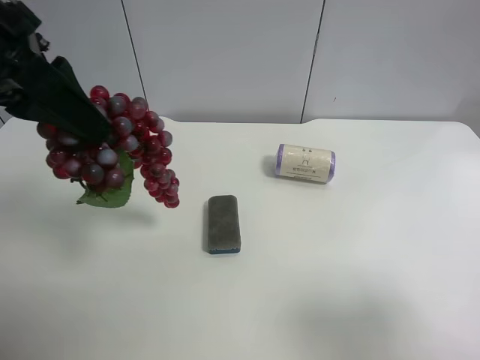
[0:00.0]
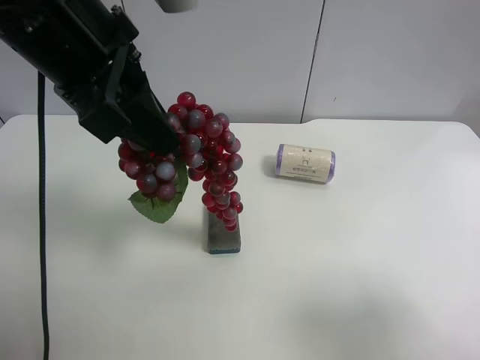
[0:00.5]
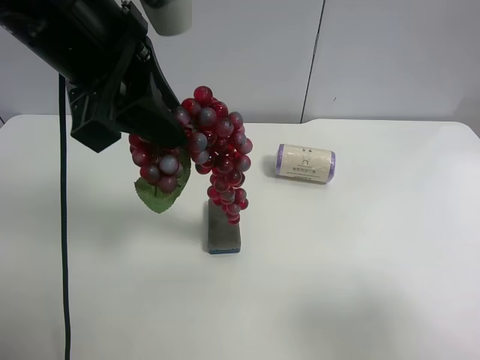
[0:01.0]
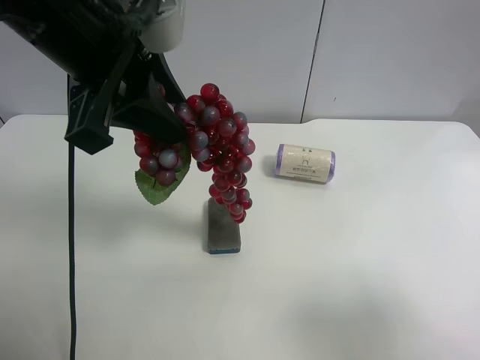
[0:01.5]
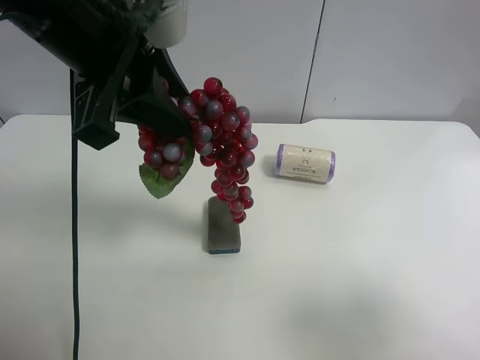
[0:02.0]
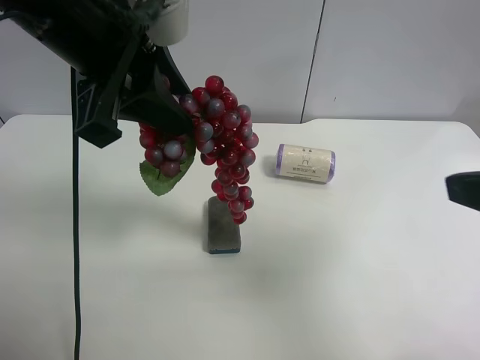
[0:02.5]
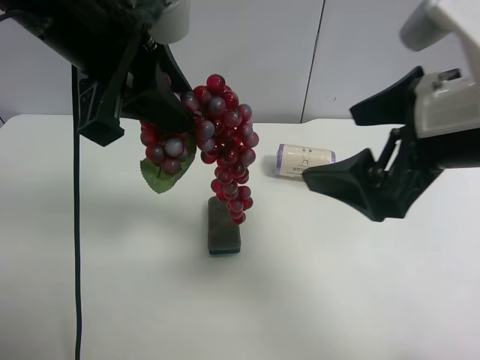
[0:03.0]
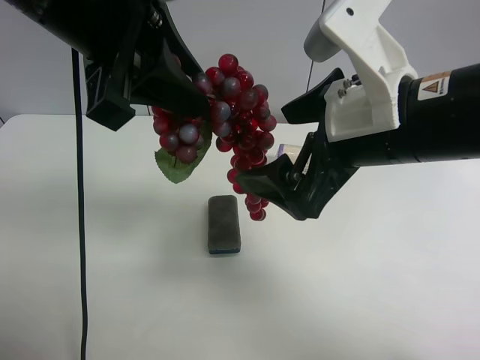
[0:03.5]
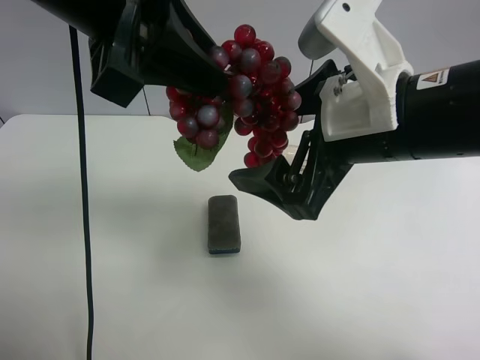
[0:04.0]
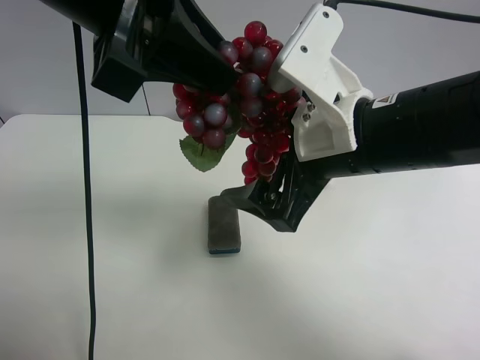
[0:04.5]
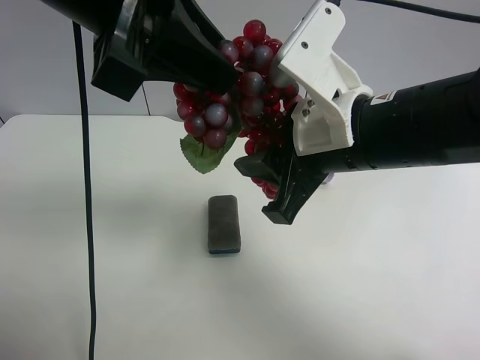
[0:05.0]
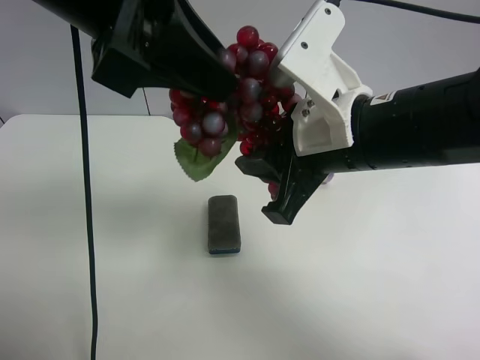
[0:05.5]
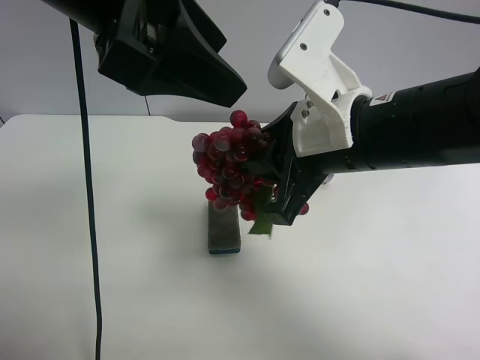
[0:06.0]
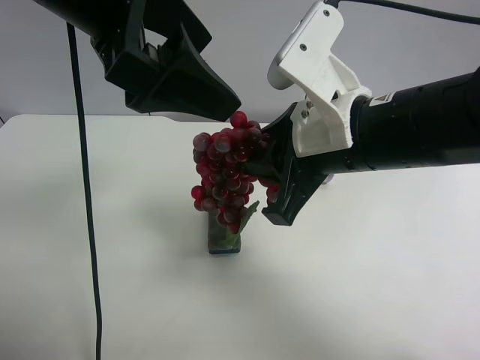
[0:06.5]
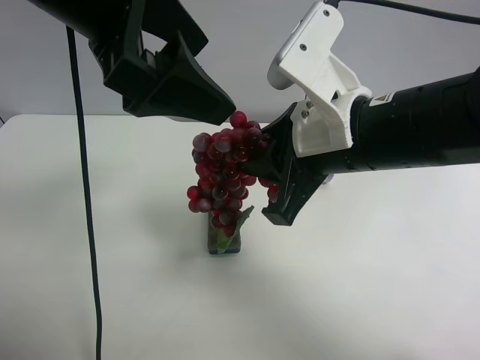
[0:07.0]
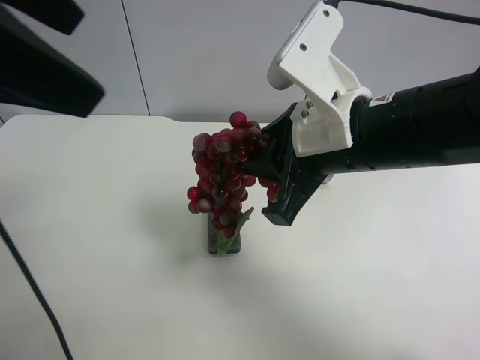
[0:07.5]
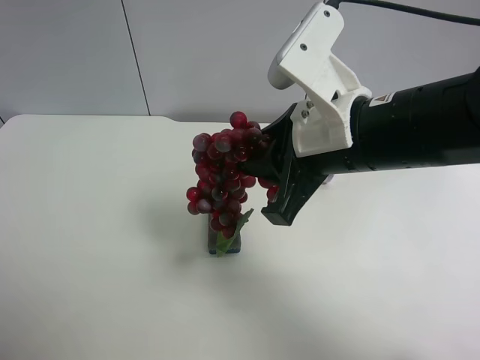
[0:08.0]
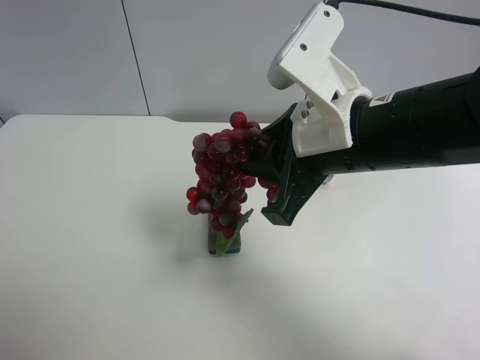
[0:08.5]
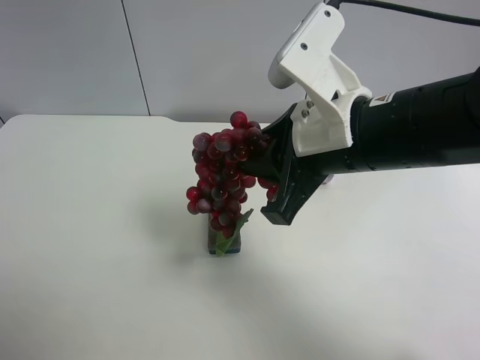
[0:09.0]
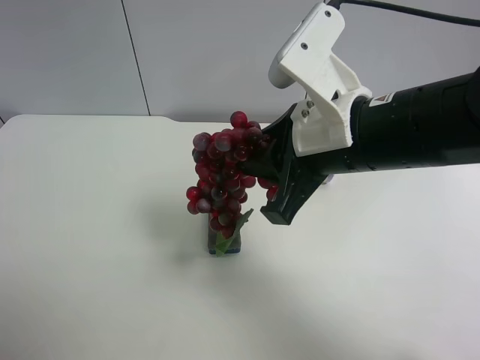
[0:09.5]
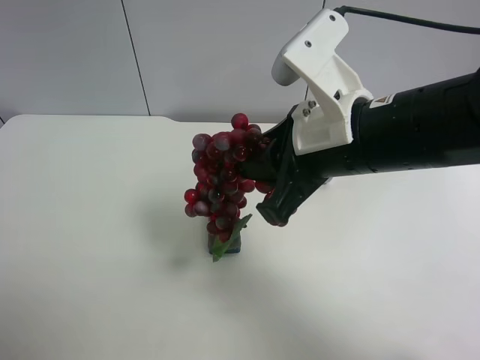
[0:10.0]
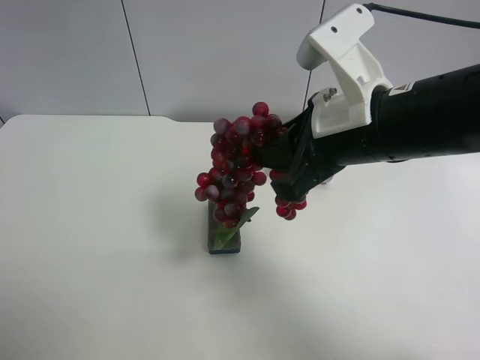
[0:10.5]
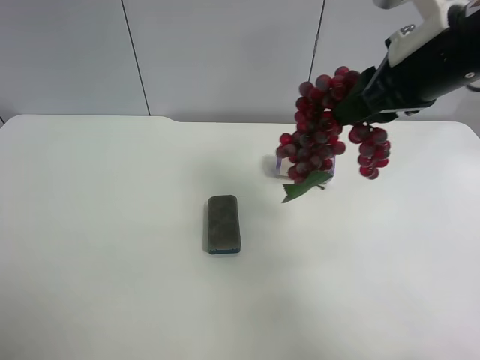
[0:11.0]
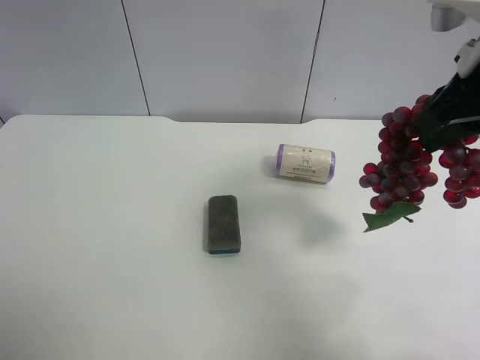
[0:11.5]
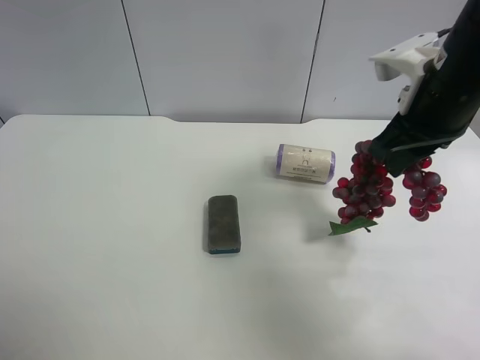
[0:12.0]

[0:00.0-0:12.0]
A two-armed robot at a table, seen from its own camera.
Task of the whole recording: use the left gripper to pick up the item and transfer it from the left gripper to the right gripper.
0:00.0 to 0:02.0: The left gripper moves to the right, approximately 5 cm.
0:02.0 to 0:04.0: The right gripper moves forward and to the left, some 25 cm.
0:04.0 to 0:06.0: The left gripper opens its fingers. The right gripper closes up.
0:06.0 to 0:08.0: The left gripper travels to the left and backward by some 20 cm, and opens its fingers.
0:08.0 to 0:10.0: The left gripper goes roughly 15 cm downward, backward and to the left.
0:10.0 to 0:12.0: The right gripper shifts roughly 15 cm to the right and forward.

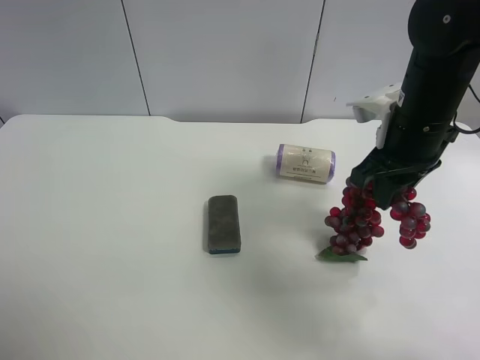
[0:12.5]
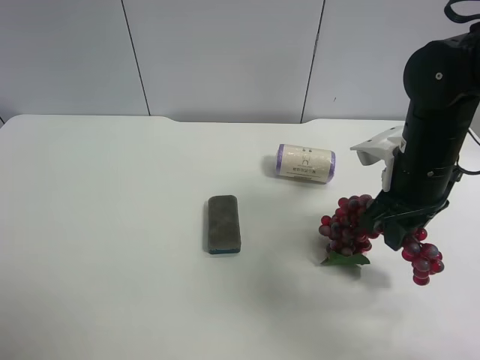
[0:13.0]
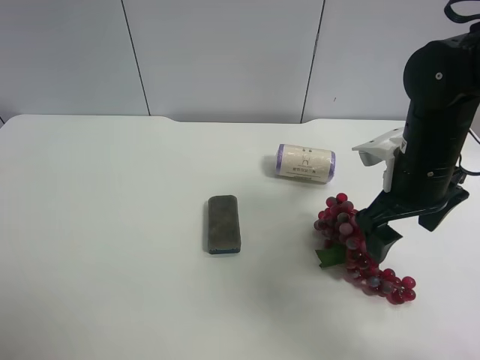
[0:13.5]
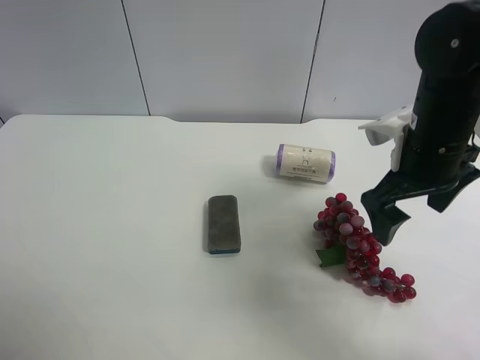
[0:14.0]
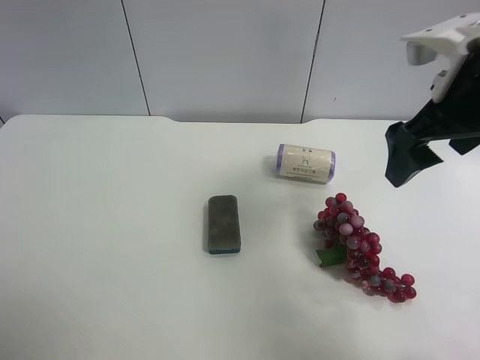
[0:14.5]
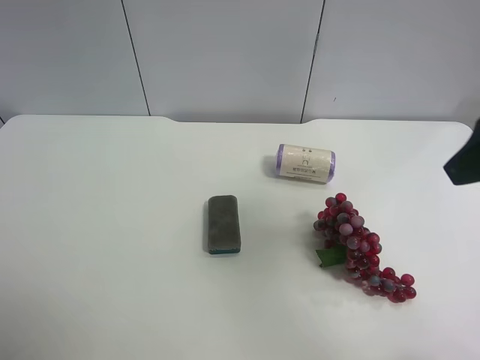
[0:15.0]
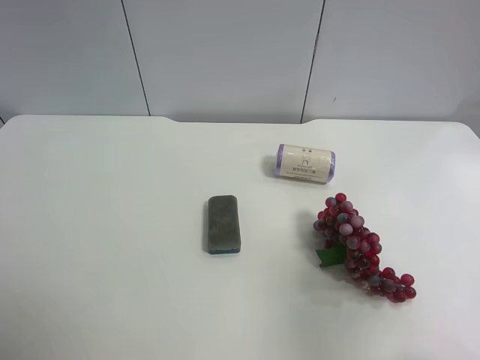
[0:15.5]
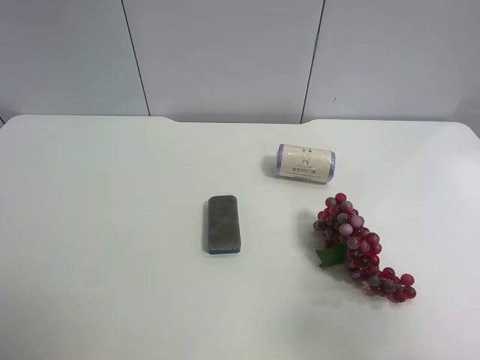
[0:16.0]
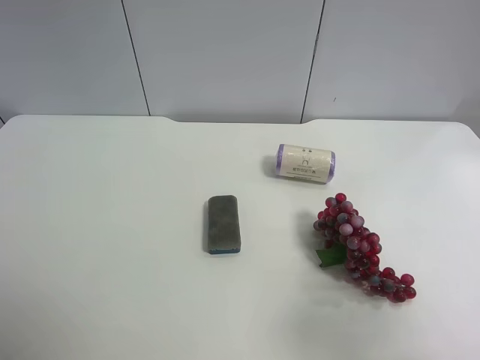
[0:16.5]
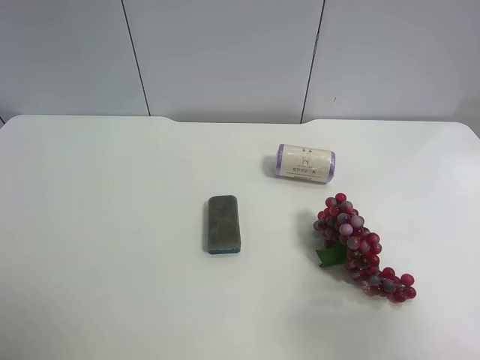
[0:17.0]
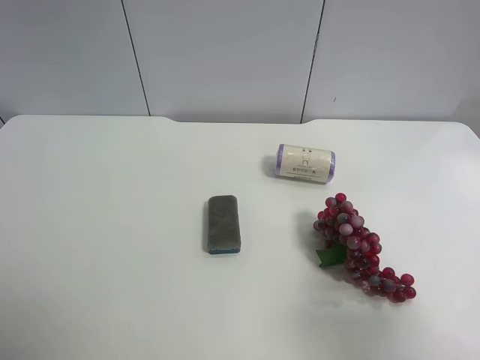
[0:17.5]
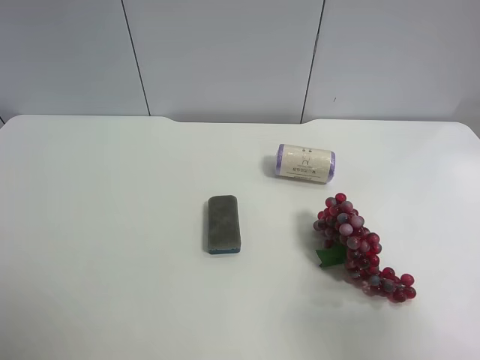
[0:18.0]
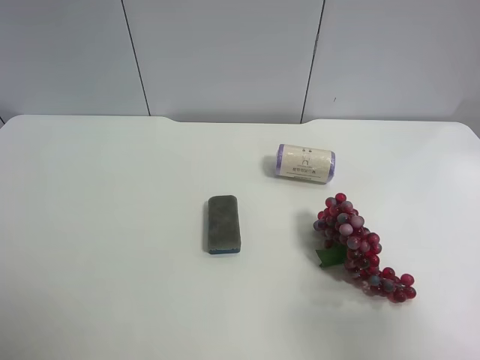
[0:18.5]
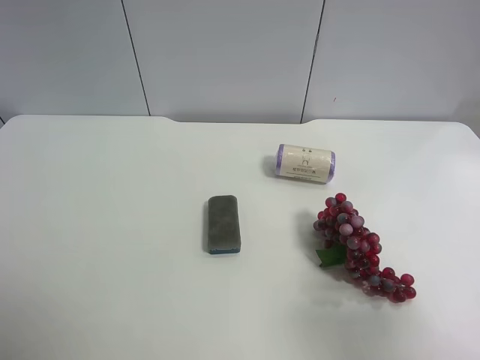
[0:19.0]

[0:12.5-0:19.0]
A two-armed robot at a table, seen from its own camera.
Task of the whole recording: use the left gripper to pick up the item and transfer it from the left gripper to the right gripper.
0:12.5 to 0:14.5: The right gripper heads upward, covering approximately 10 cm, and opens up.
0:14.5 to 0:17.0: The right gripper heads backward, covering approximately 25 cm.

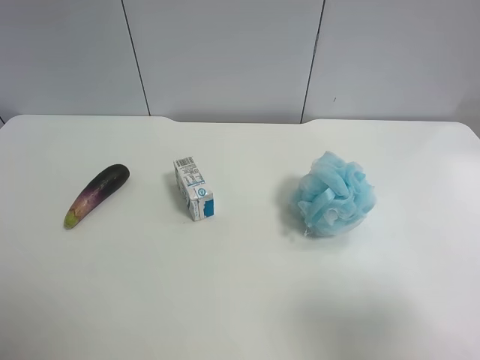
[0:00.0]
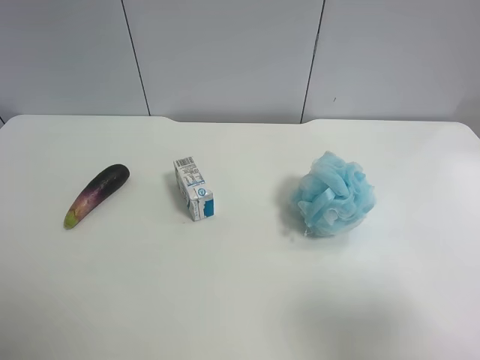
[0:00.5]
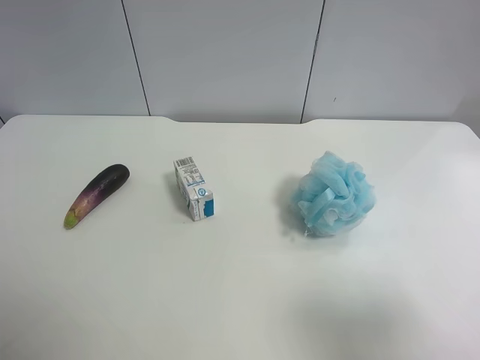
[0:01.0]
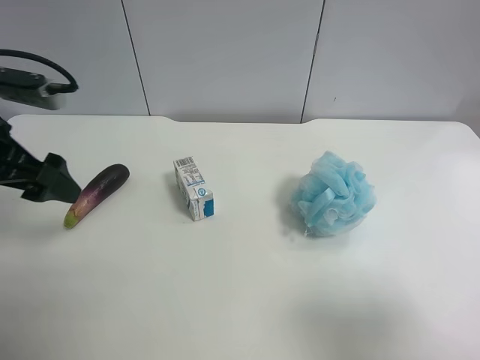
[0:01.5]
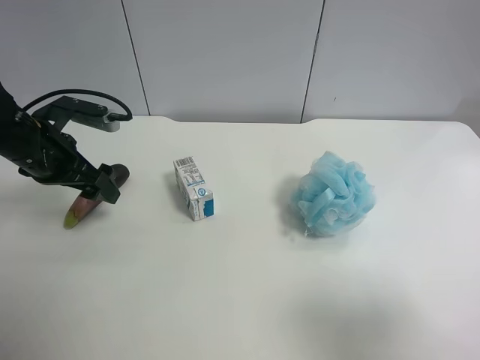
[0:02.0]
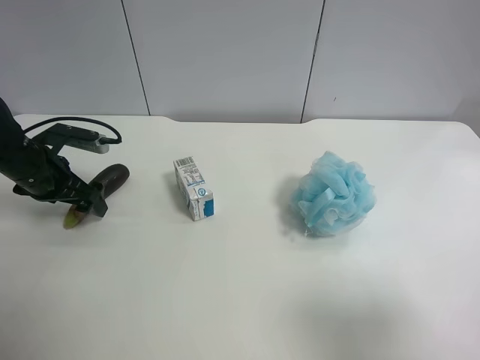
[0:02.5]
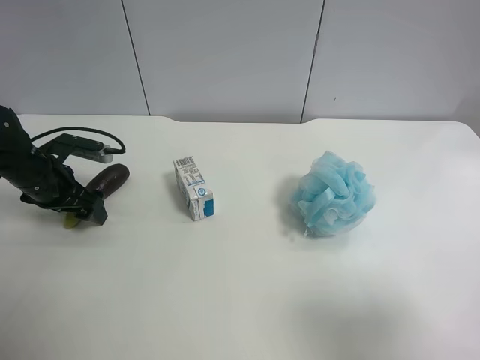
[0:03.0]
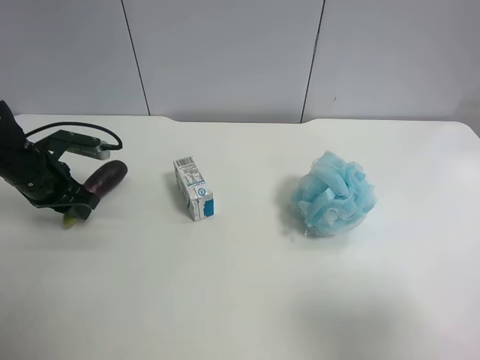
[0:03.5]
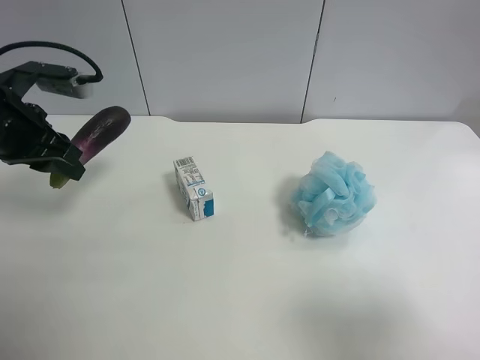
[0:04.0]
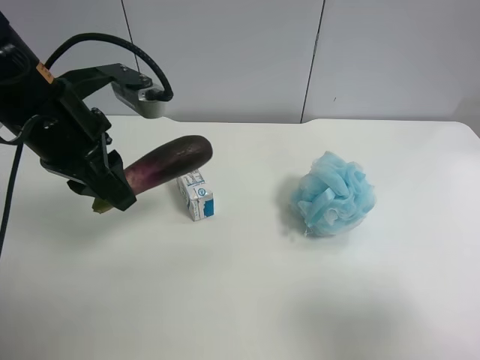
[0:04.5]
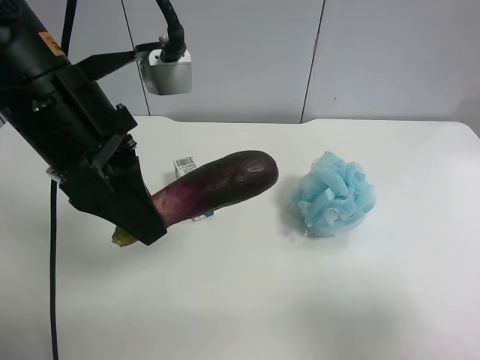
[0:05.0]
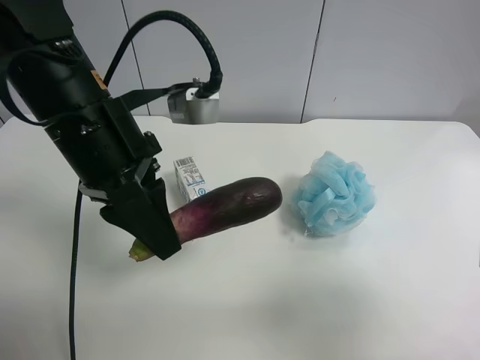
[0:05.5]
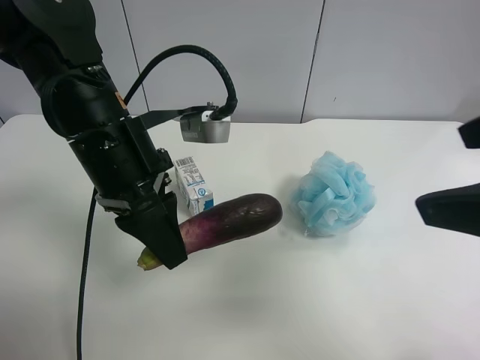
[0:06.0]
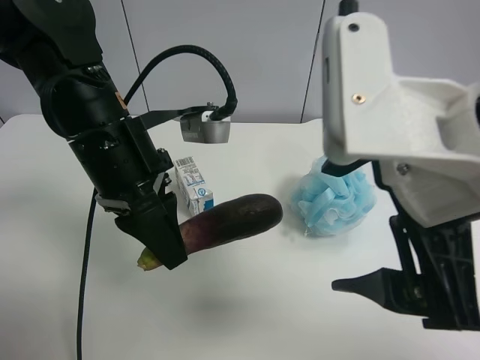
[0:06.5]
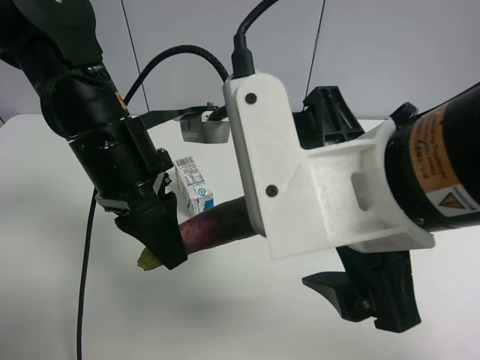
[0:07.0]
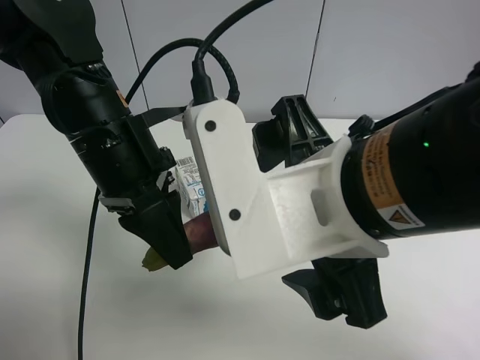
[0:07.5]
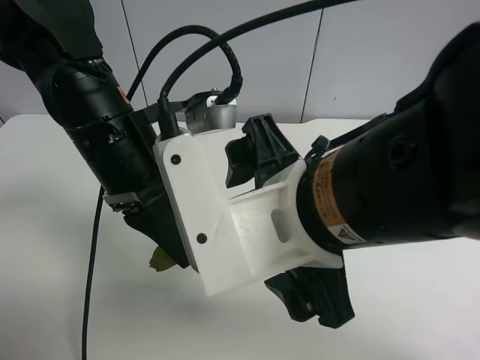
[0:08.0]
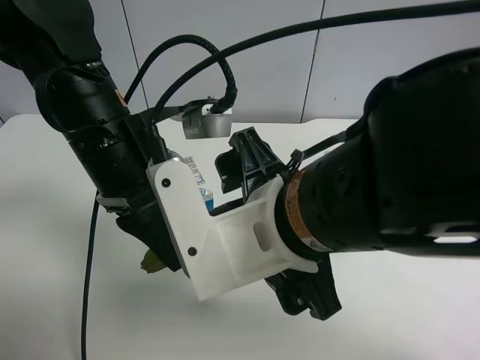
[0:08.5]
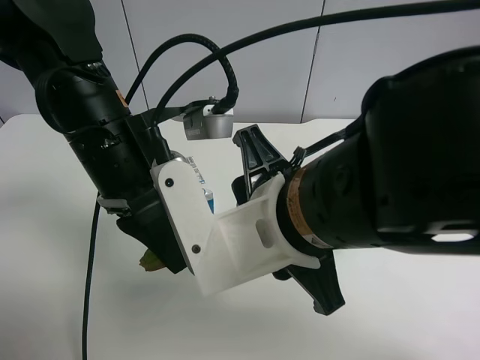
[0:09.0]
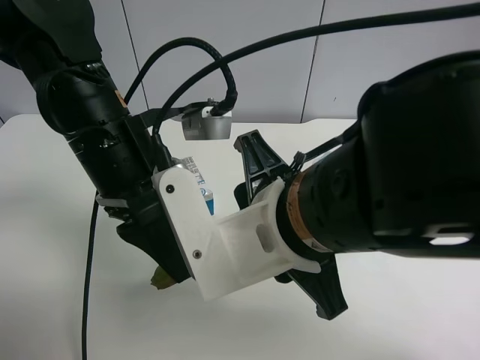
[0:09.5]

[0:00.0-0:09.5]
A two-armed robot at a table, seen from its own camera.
Task of the whole recording: use the left gripper to pick up the item and transfer it from the left gripper to the right gripper.
0:00.0 to 0:02.0: The left gripper heads forward, covering about 30 cm.
0:02.0 to 0:04.0: The left gripper moves upward, roughly 5 cm, and closes its fingers.
0:04.0 to 0:05.5: The left gripper goes some 15 cm to the right and backward.
0:05.5 to 0:07.5: The right gripper moves to the left and forward, approximately 20 cm.
0:07.5 to 0:09.5: The right gripper closes. Meanwhile the left gripper opens up.
